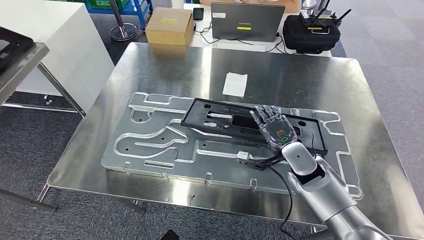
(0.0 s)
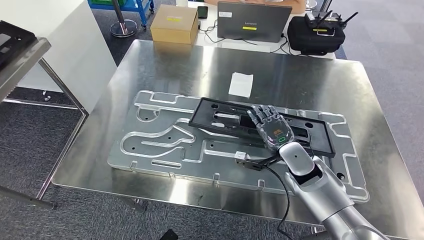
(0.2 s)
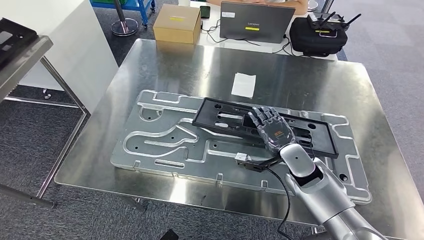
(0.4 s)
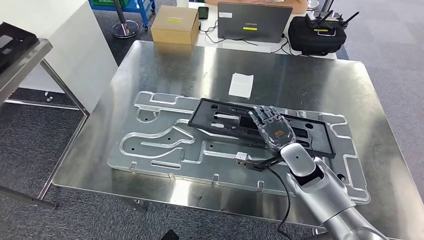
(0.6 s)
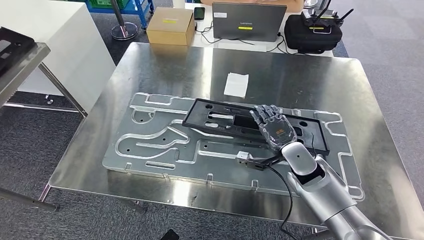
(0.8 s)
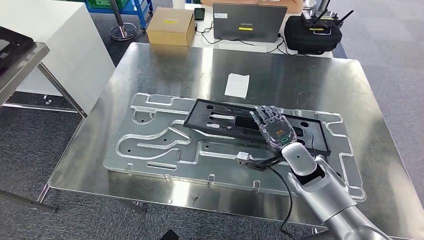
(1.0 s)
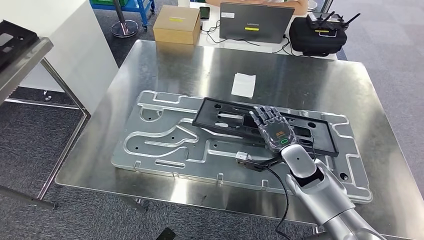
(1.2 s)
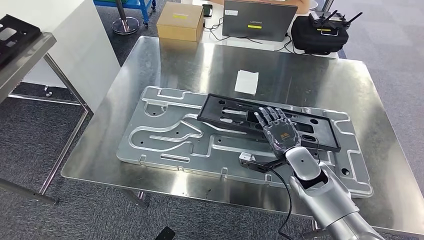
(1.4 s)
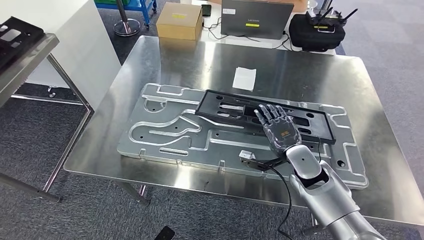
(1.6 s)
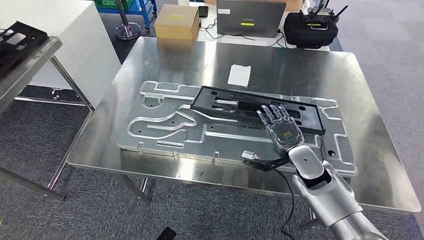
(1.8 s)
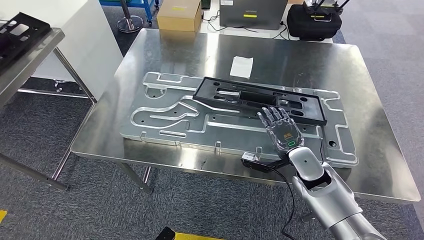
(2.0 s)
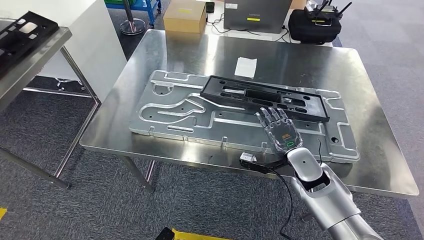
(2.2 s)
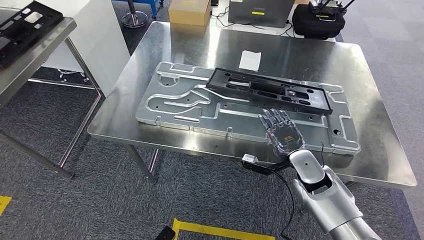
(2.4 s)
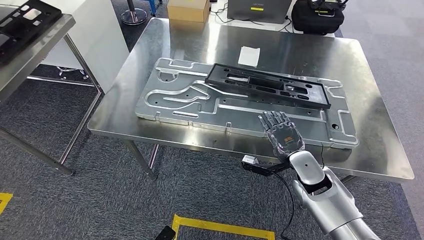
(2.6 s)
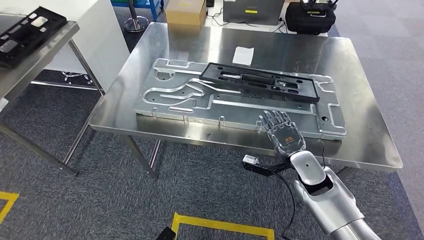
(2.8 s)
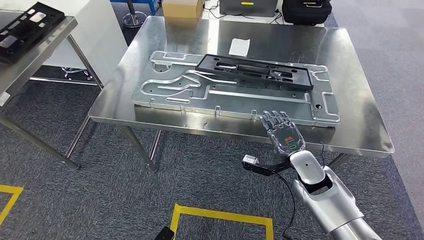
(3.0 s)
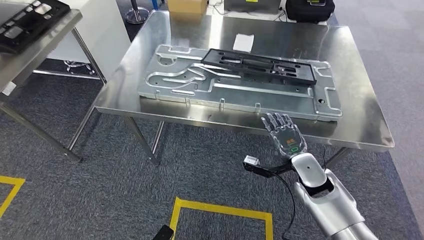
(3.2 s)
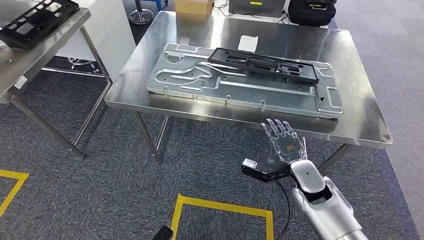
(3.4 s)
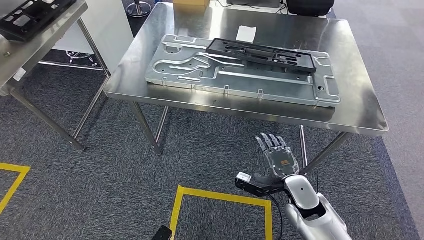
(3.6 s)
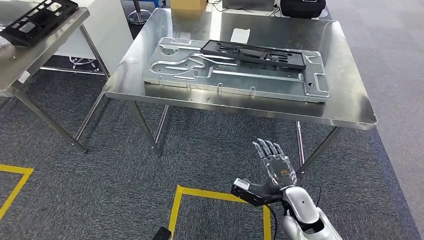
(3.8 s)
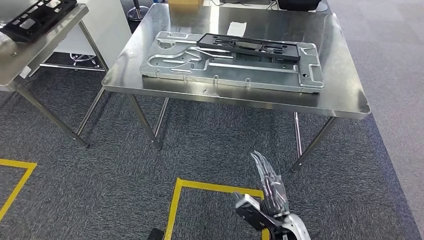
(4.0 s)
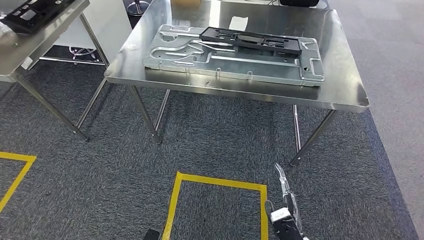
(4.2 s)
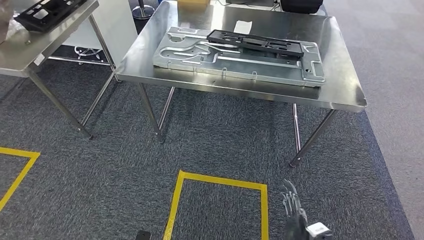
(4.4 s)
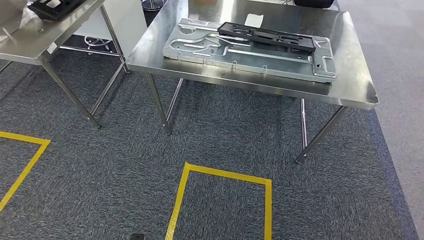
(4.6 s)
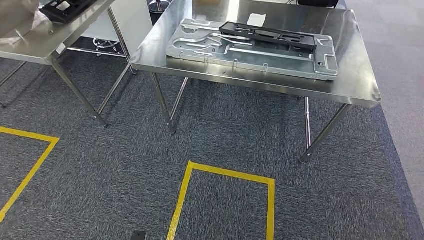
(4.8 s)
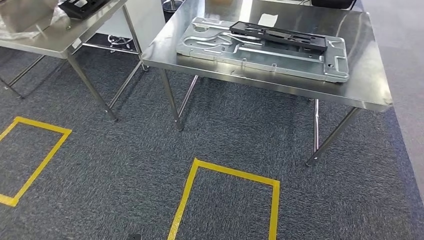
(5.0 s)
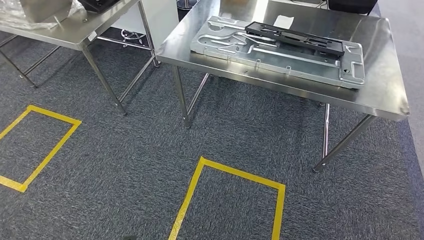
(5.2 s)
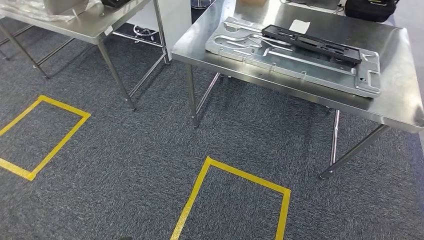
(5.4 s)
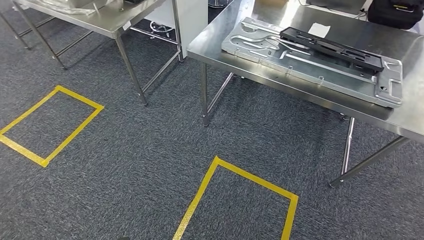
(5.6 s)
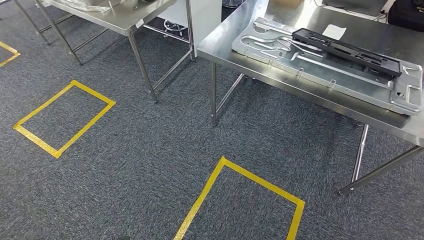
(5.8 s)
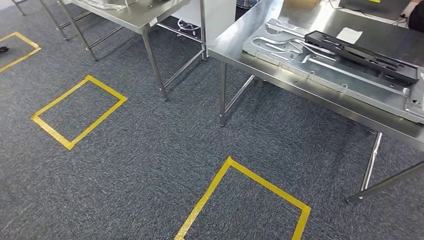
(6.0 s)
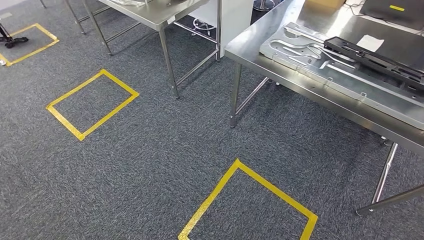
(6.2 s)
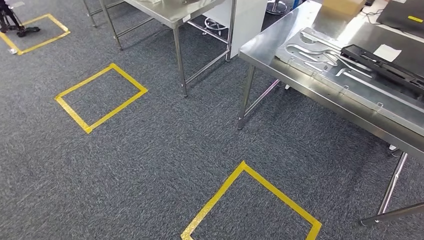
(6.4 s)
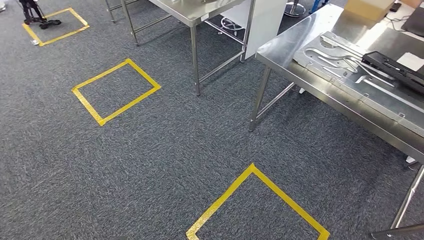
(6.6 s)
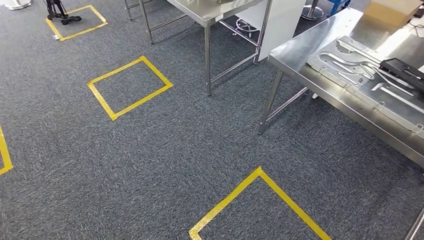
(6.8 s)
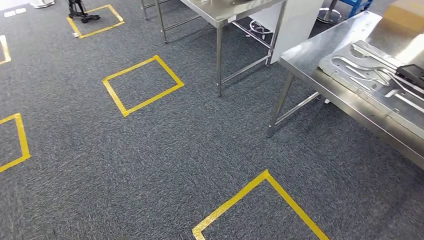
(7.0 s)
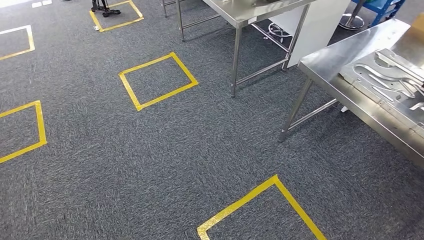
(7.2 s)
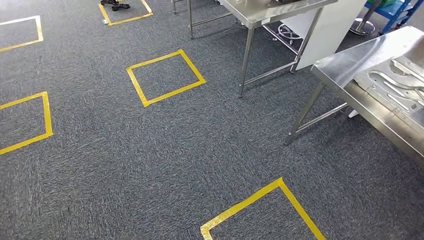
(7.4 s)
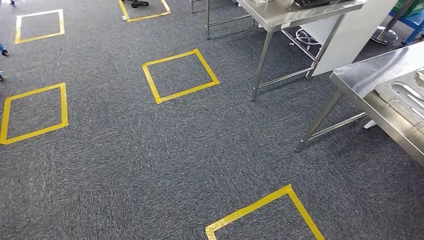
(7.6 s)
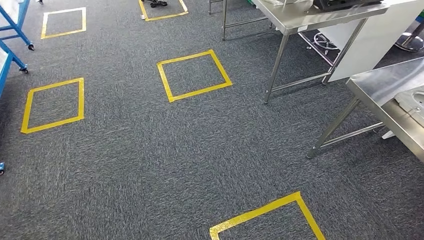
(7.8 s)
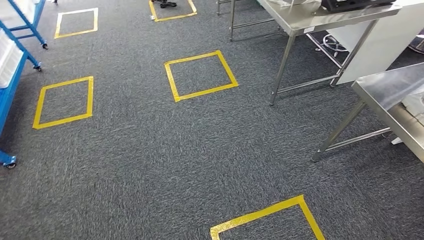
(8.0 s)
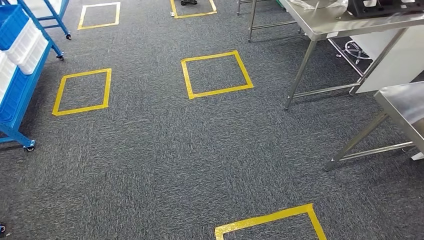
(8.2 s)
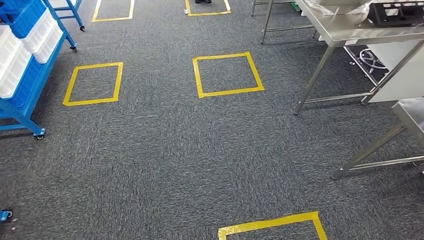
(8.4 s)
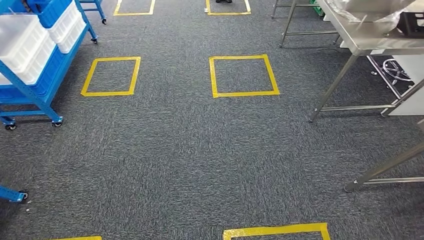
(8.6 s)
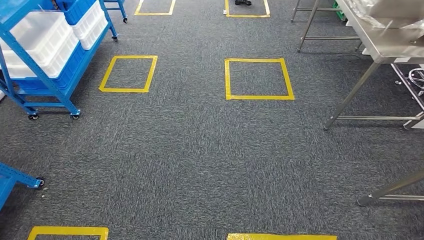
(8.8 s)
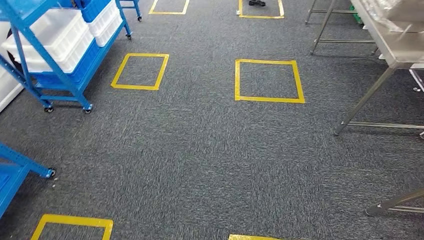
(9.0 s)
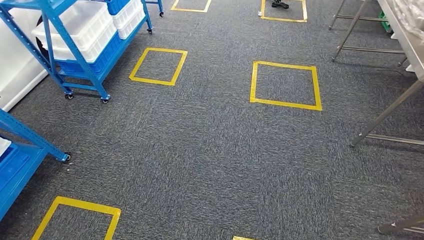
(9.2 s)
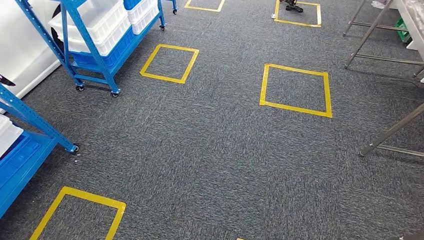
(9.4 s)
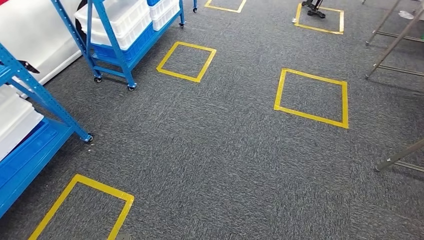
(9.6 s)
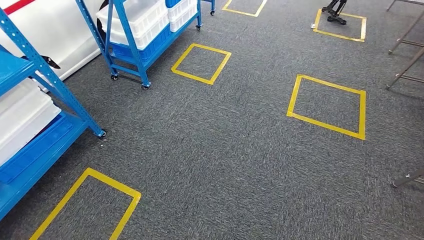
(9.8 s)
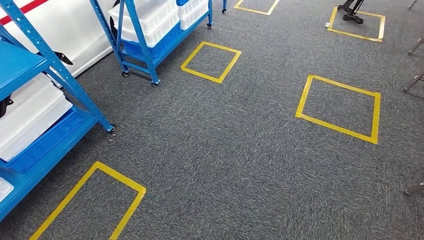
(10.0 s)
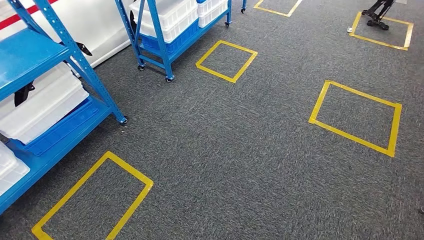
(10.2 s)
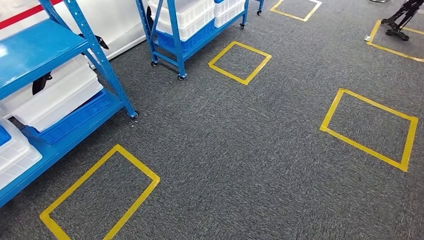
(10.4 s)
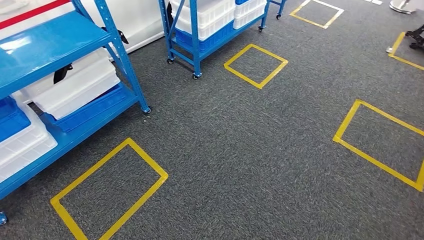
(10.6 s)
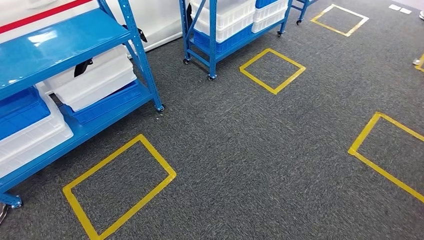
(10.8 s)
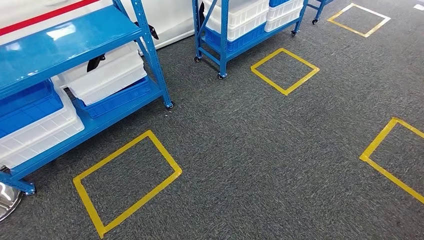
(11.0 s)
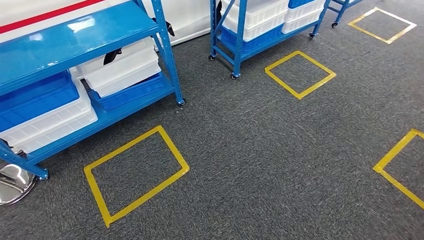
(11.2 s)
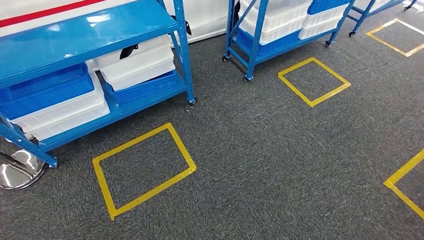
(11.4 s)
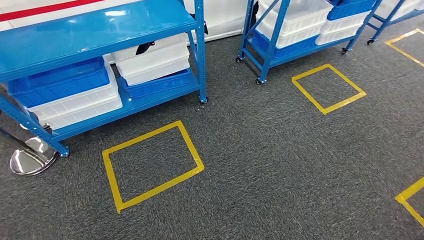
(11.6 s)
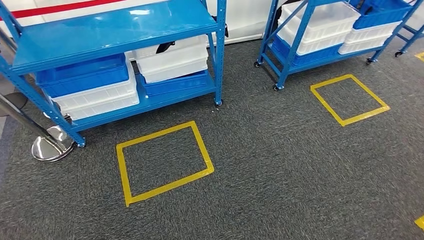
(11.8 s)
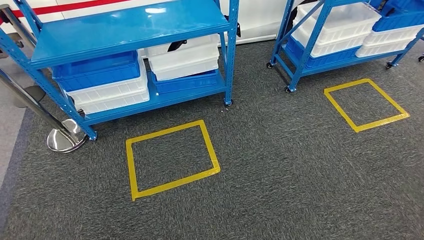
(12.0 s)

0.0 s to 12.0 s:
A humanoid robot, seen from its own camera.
Step, 0.0 to 4.8 s: Insert the large material into the corresponding hole on the workbench.

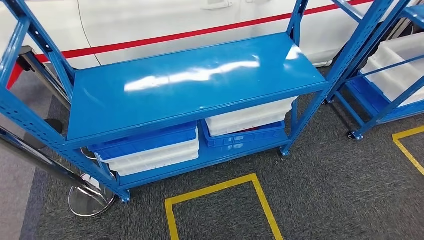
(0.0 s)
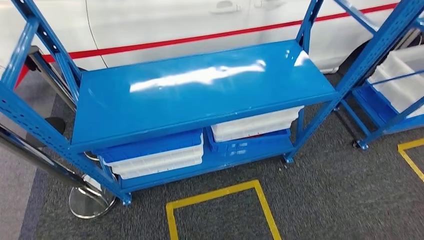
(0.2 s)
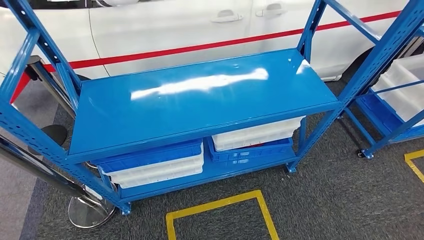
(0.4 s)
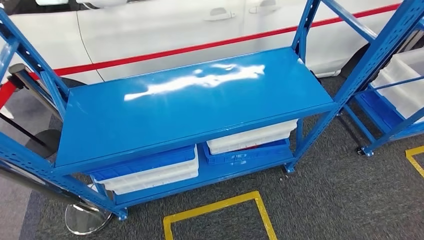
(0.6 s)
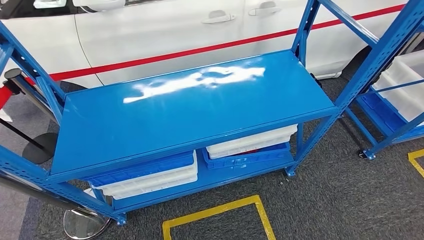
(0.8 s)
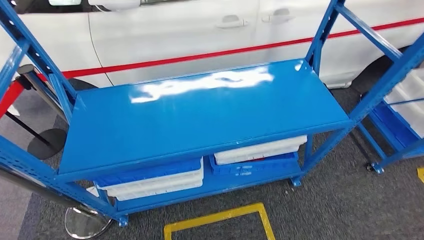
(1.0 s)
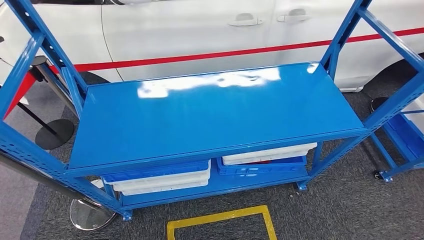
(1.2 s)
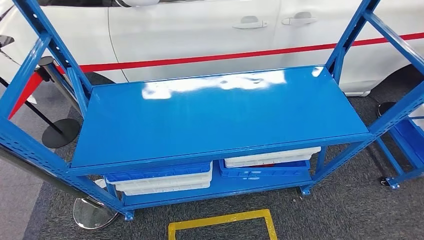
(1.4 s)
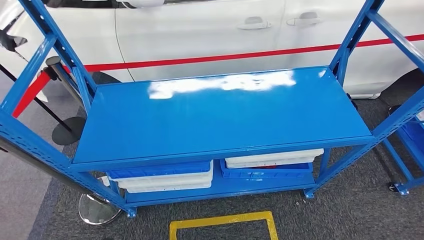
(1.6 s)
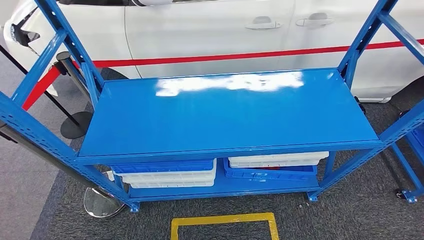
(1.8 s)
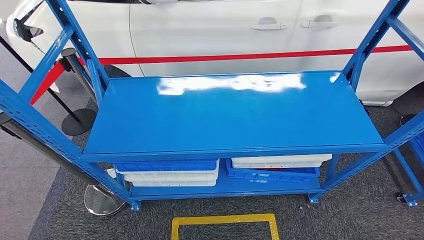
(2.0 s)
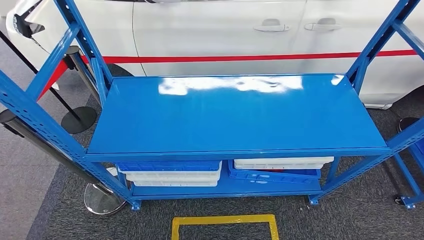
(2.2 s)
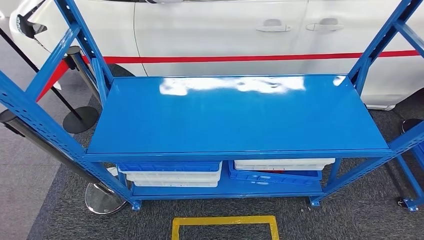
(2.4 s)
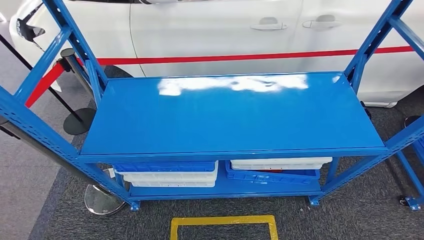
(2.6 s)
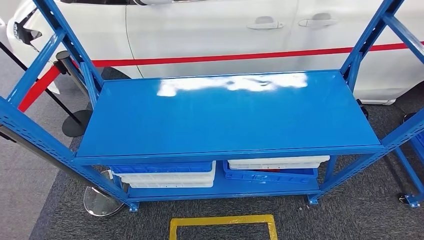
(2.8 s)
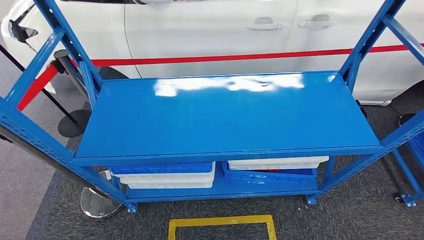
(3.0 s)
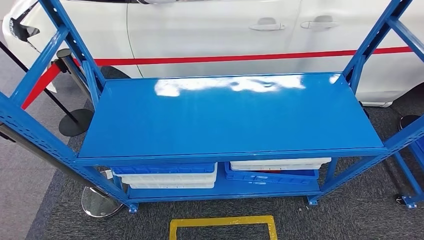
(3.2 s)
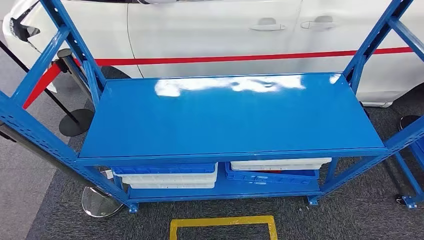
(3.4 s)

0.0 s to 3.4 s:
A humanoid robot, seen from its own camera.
Step, 0.0 to 3.2 s: Move to the initial position of the shelf.
